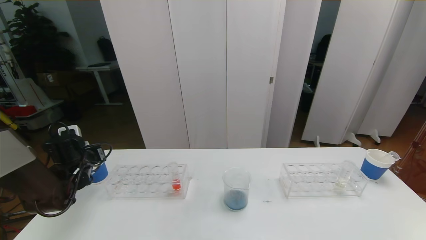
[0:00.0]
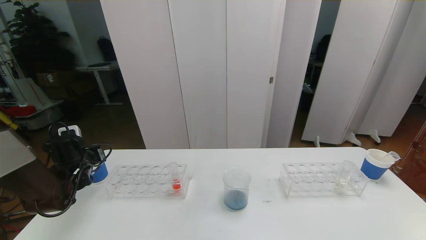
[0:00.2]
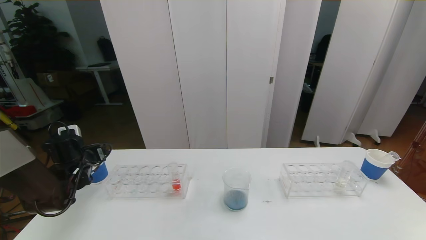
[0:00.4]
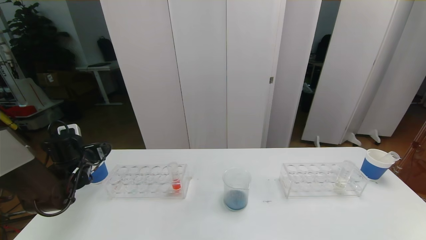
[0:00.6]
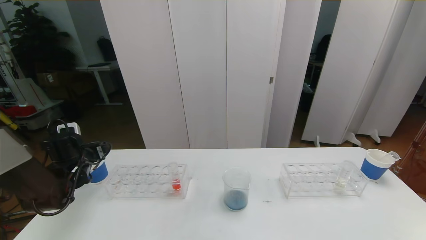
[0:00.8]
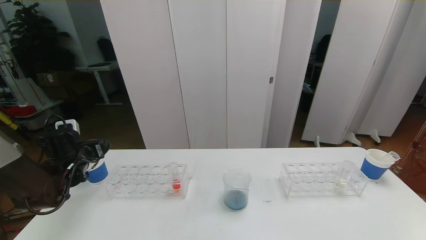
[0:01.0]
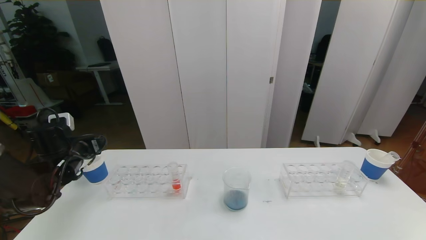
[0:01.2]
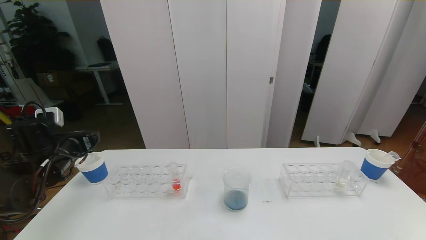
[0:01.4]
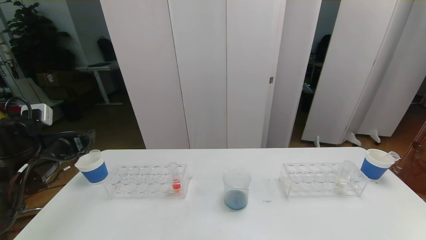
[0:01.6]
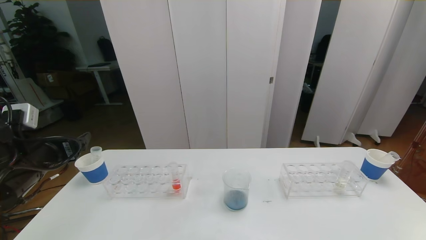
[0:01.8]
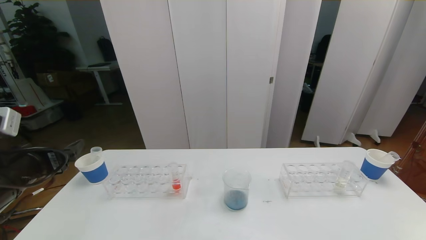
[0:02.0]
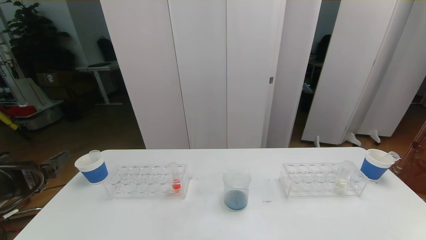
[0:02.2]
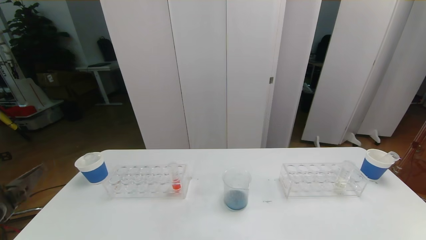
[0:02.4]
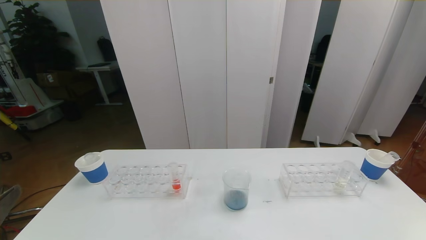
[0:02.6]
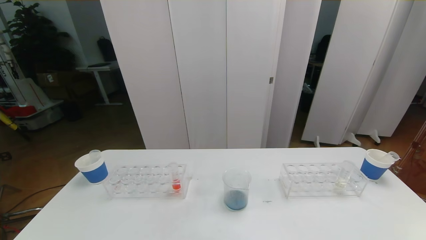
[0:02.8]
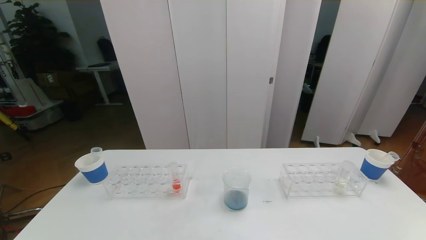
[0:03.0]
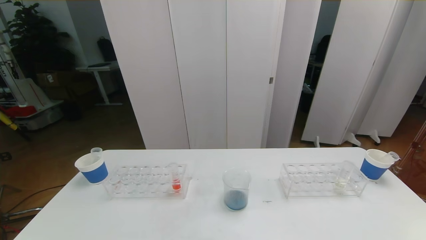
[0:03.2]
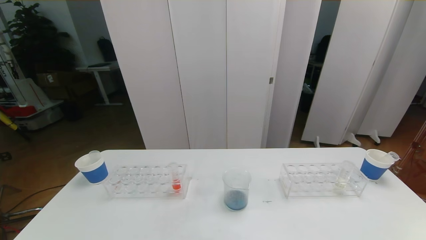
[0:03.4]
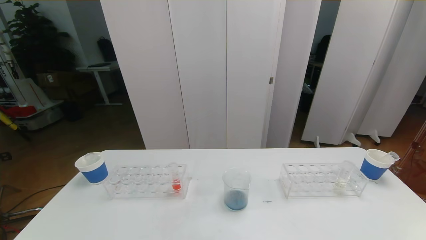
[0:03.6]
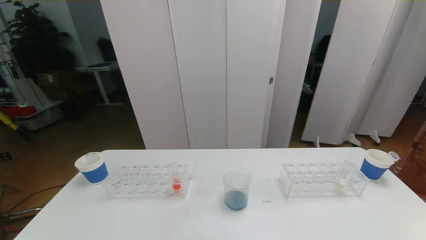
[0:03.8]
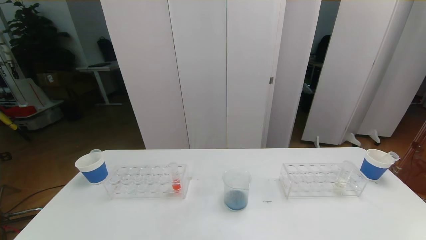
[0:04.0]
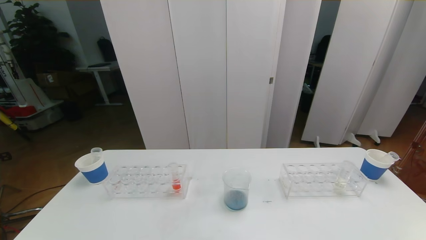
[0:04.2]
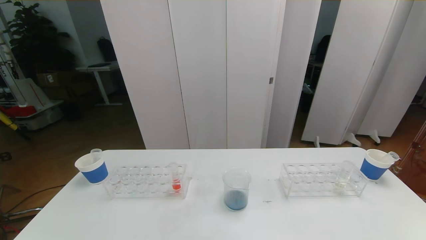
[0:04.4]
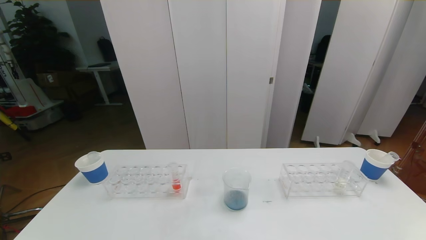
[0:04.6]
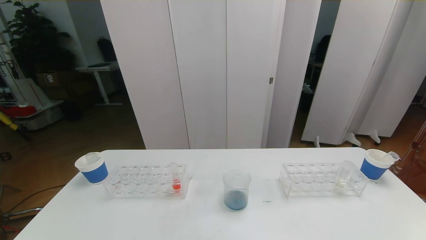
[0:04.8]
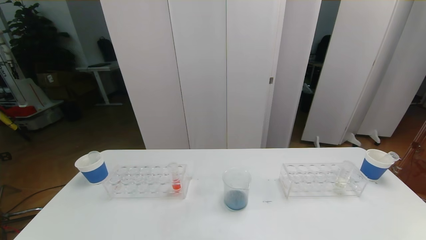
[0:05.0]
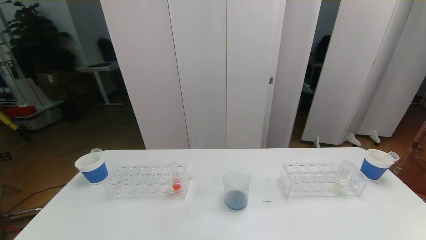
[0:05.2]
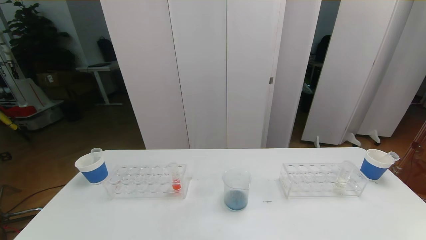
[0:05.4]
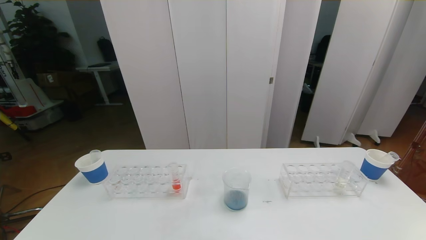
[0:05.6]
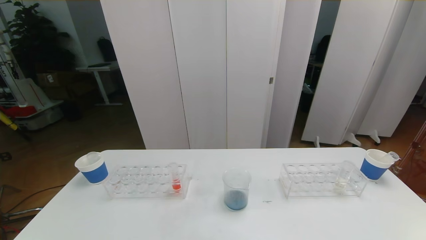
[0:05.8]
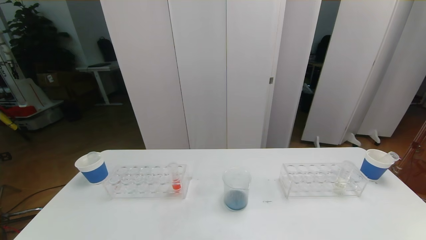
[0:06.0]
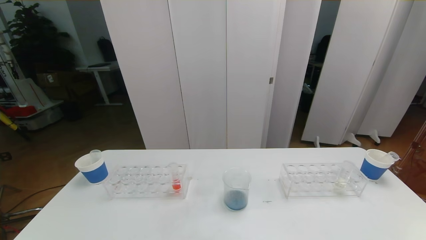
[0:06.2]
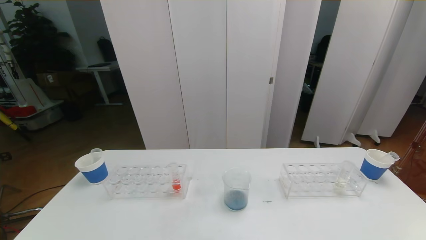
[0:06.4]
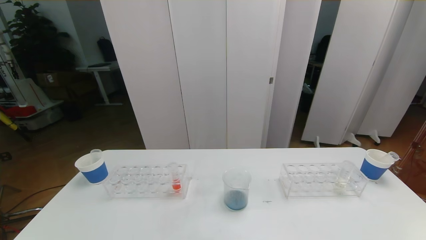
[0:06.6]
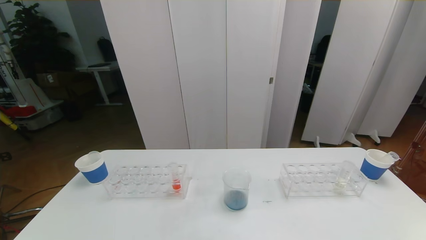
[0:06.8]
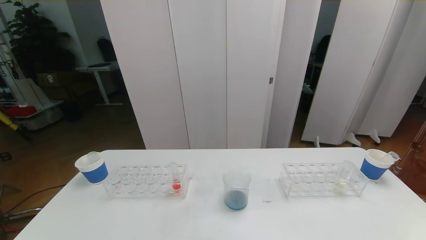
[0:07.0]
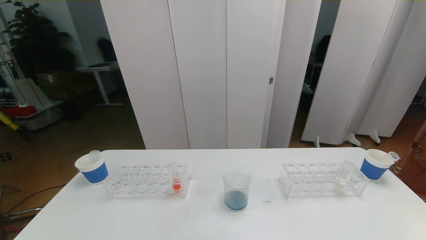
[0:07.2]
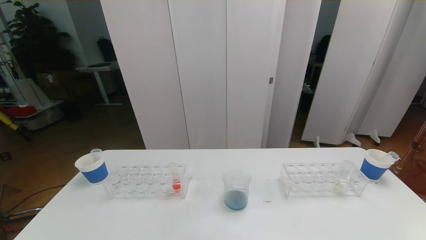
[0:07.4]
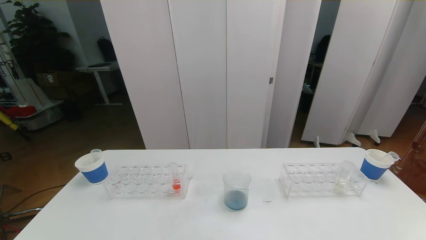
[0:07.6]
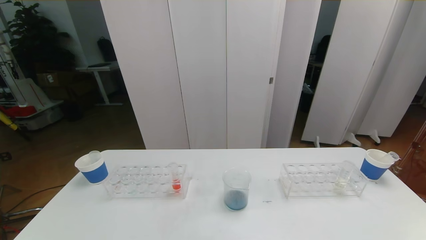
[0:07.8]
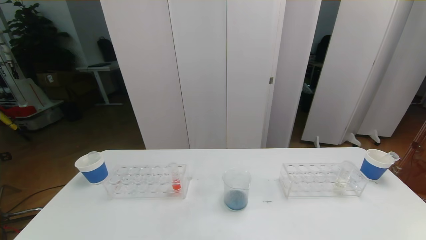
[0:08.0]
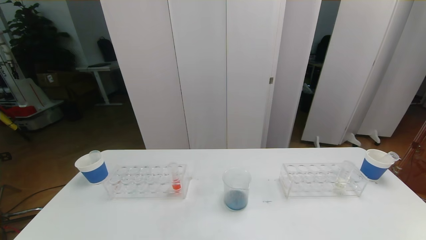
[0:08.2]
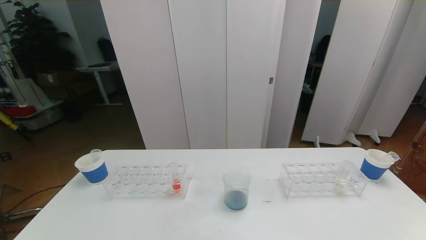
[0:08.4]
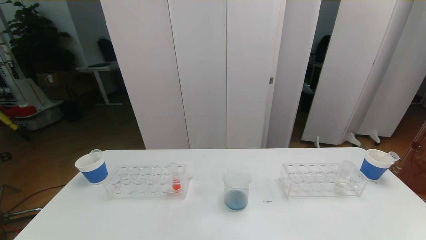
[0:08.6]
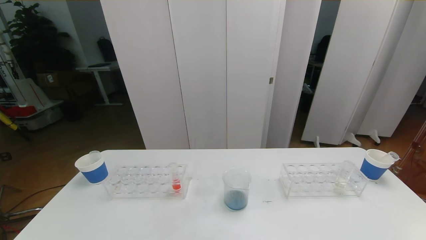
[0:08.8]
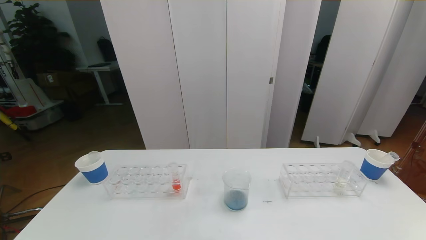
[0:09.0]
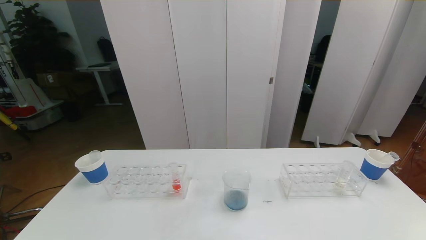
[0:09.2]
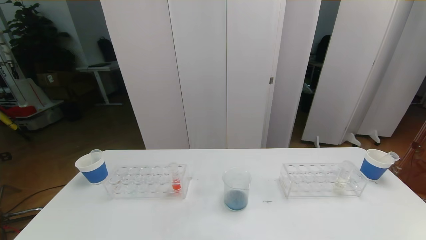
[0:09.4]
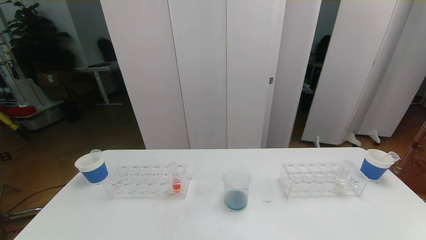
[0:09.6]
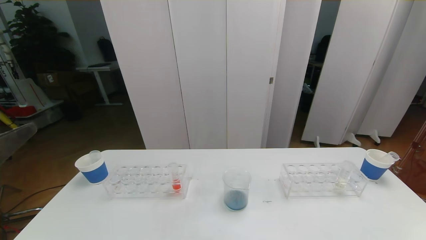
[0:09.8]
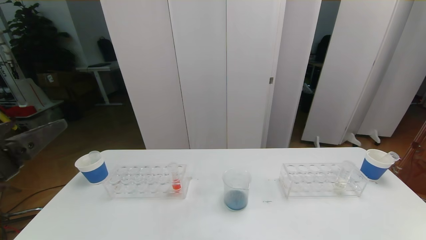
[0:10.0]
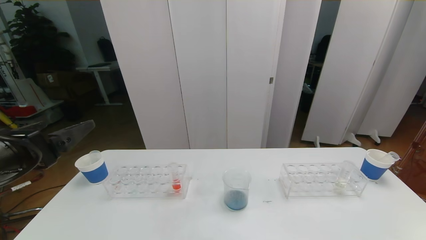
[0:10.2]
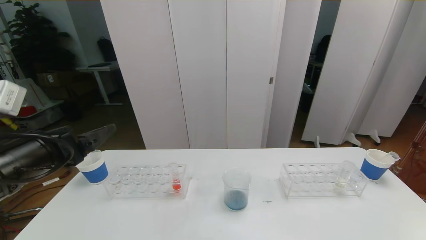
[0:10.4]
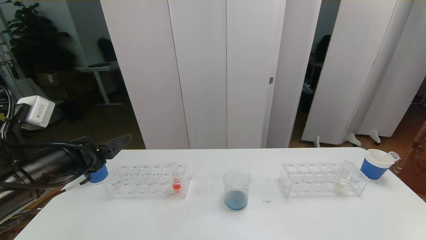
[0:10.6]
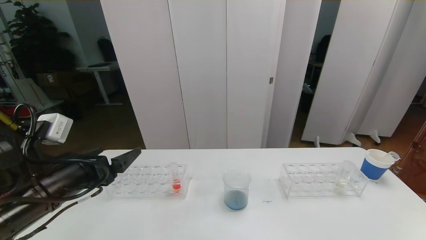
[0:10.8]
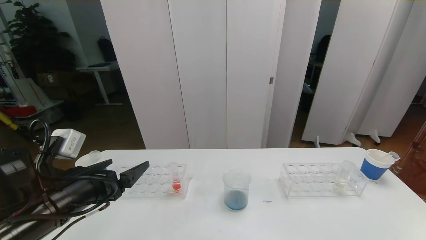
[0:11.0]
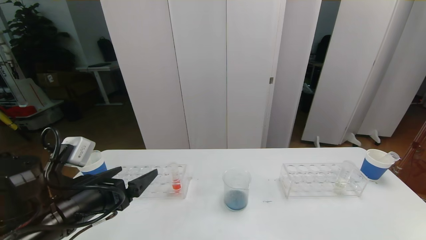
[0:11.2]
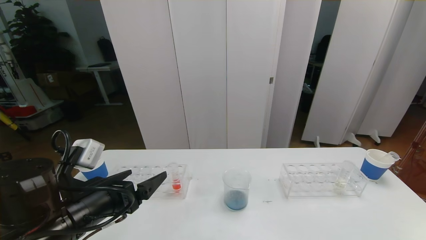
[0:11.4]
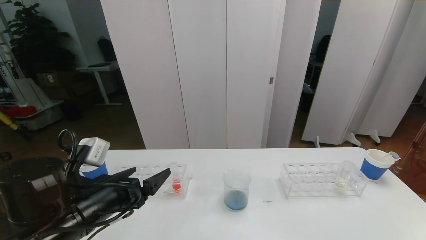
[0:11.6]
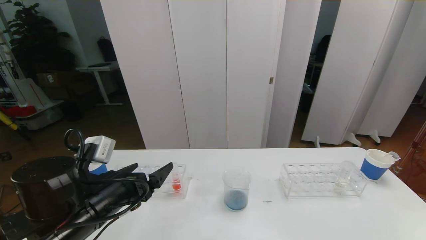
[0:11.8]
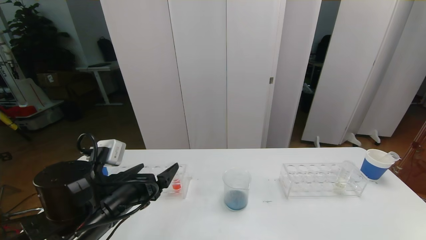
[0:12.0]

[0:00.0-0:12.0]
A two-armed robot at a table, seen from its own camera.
Task of the whole recording: pick up the test tube with red pigment the test tube with blue pigment and the test tube with white pigment by grippers and pour them into the beaker.
Step, 0:00.0 to 0:06.0: Pour the blue reagent into the graduated cylinder and place the test tube into the paper cup.
0:00.0 to 0:01.6: The left gripper moves upward and backward, some 15 cm, and opens up.
0:01.6 to 0:03.0: The left gripper heads backward, covering approximately 30 cm.
0:04.4 to 0:07.6: The two grippers keep their place.
0:09.0 to 0:10.4: The left gripper heads forward, covering approximately 25 cm.
0:10.4 to 0:12.0: The left gripper heads downward and to the right, covering roughly 15 cm.

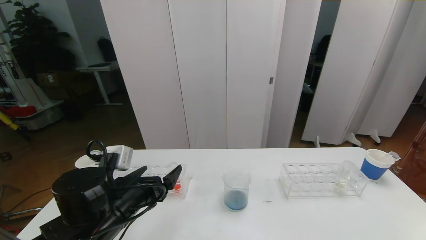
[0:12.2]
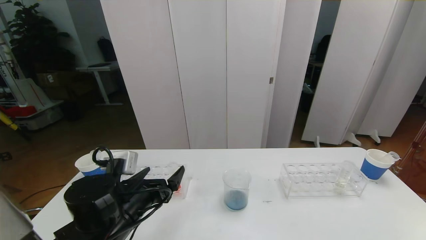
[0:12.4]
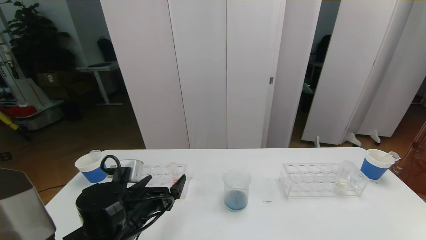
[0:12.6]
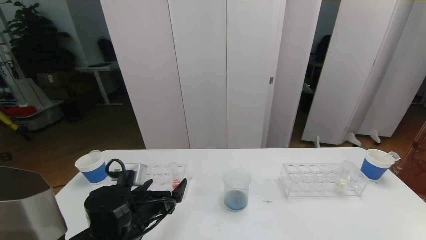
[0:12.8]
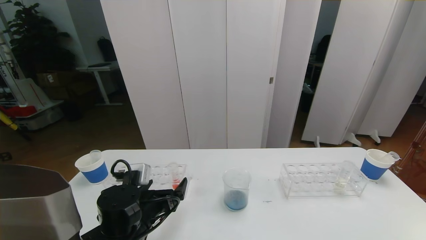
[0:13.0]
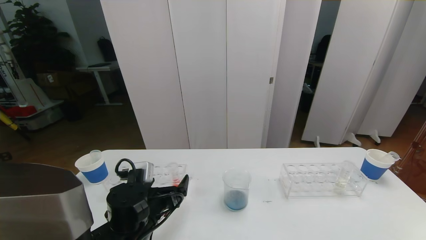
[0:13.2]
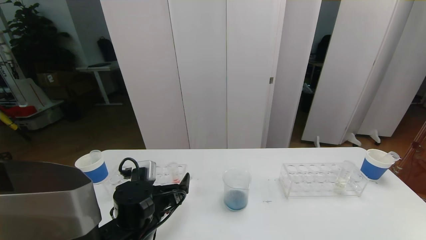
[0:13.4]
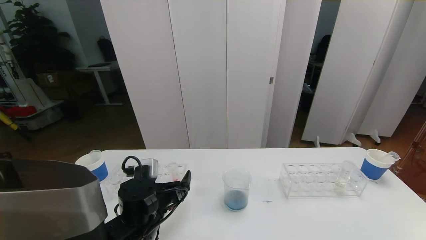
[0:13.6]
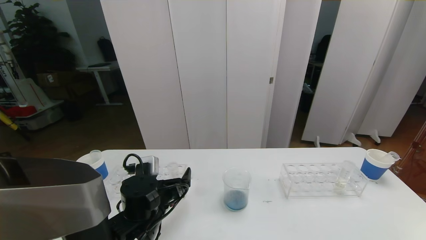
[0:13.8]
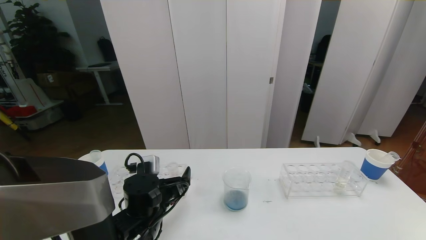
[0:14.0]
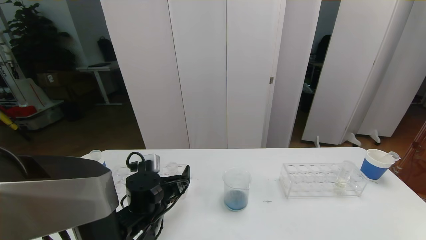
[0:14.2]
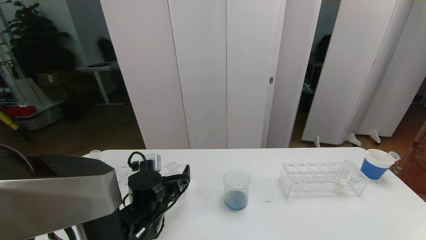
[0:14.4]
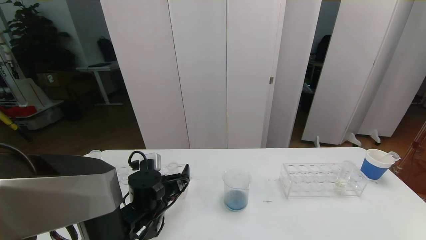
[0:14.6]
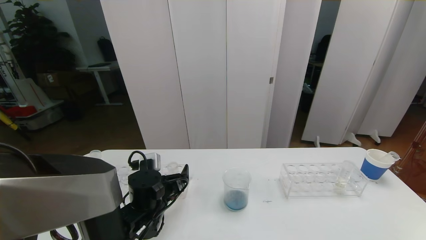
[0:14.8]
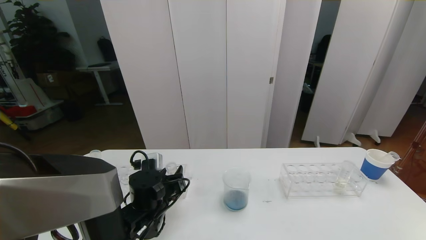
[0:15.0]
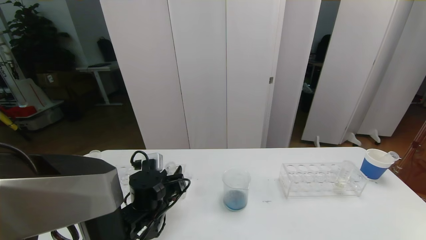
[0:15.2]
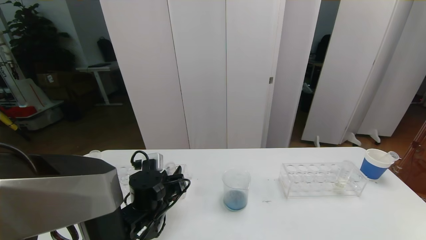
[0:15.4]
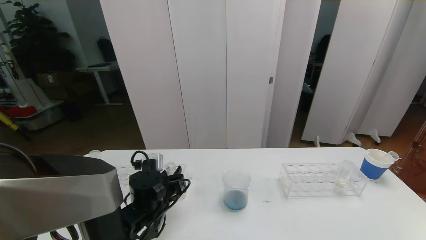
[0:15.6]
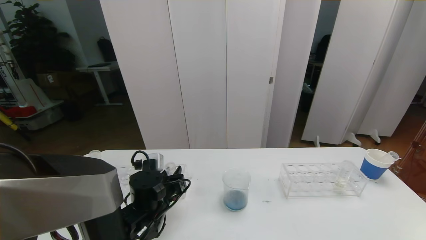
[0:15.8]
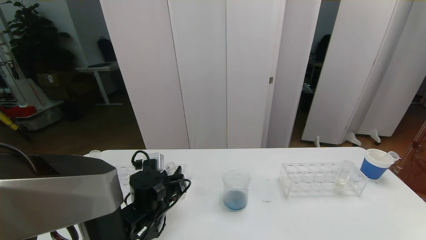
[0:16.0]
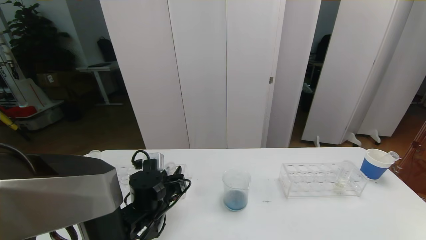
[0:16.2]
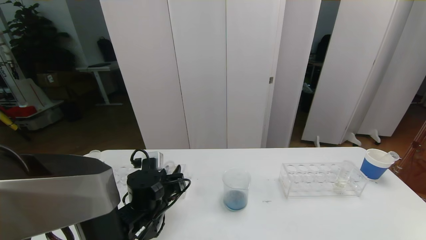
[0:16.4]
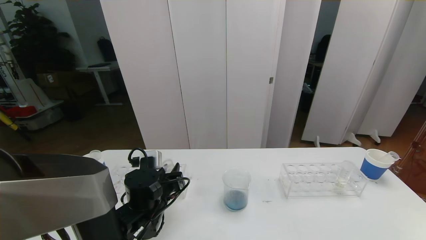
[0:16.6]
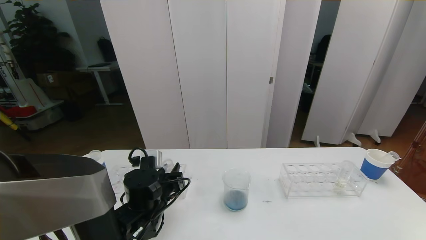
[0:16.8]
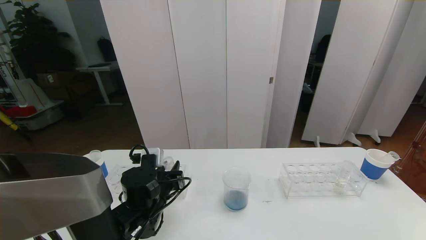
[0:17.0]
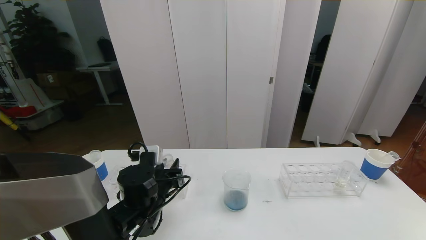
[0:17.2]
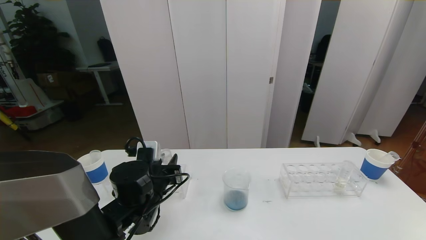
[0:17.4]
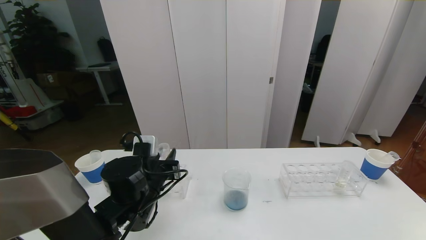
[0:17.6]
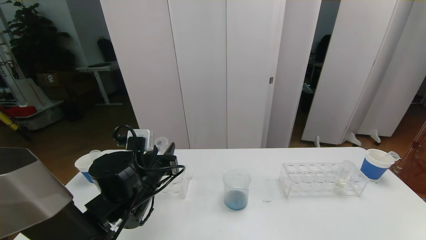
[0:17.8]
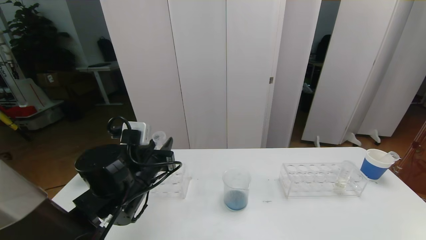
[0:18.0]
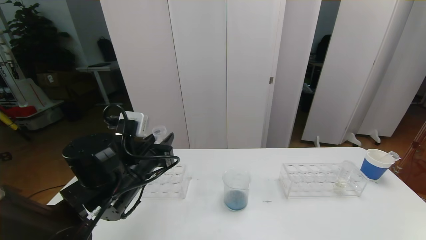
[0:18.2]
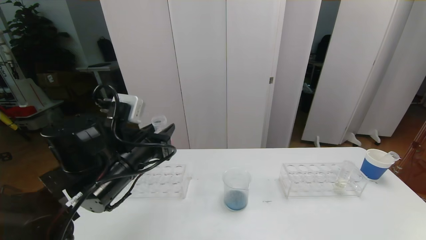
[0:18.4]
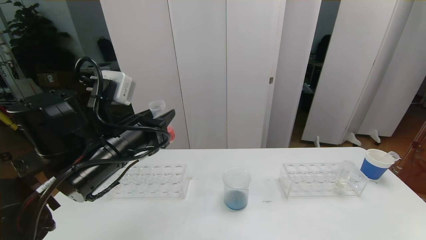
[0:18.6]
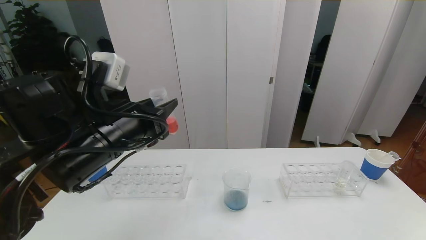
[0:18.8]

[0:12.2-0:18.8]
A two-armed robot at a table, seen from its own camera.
Task of the whole recording: pick up the test tube with red pigment the test tube with blue pigment and the test tube with white pigment by grippers and pour them into the beaker.
0:12.2 to 0:13.8: The left gripper goes about 5 cm downward.
0:13.8 to 0:15.4: The left gripper closes.
0:15.4 to 0:17.2: The grippers stay close to where they were, moving slightly.
0:17.2 to 0:18.8: The left gripper heads upward, covering some 20 cm.
